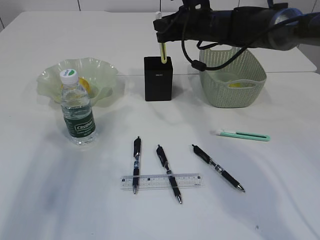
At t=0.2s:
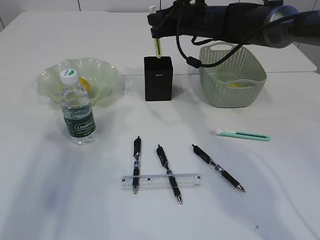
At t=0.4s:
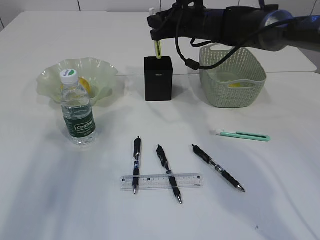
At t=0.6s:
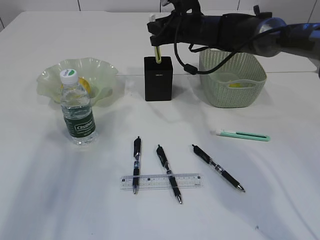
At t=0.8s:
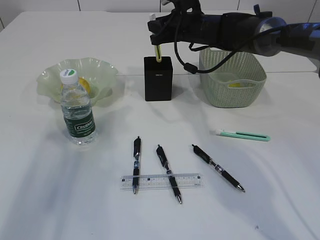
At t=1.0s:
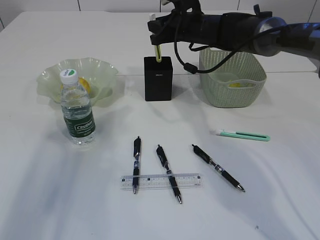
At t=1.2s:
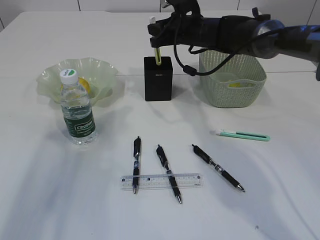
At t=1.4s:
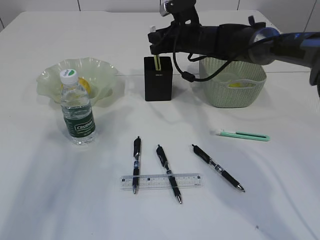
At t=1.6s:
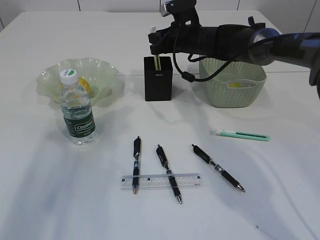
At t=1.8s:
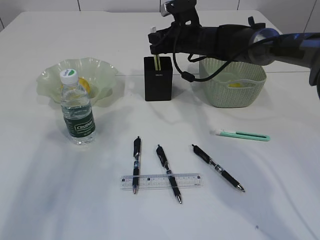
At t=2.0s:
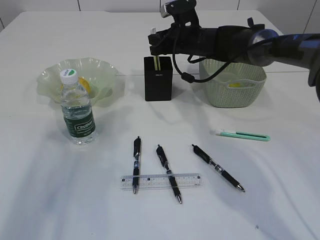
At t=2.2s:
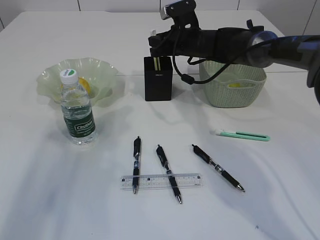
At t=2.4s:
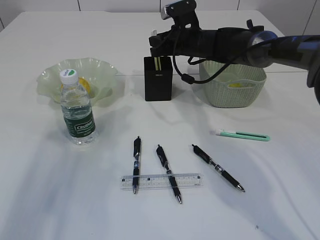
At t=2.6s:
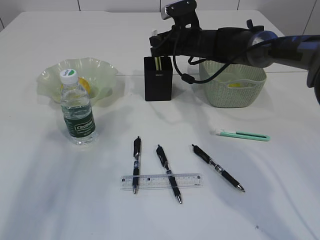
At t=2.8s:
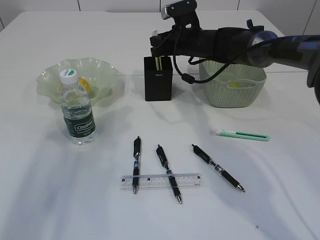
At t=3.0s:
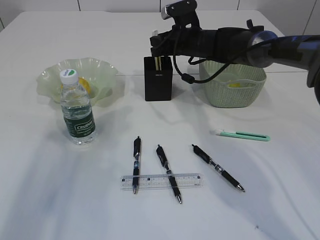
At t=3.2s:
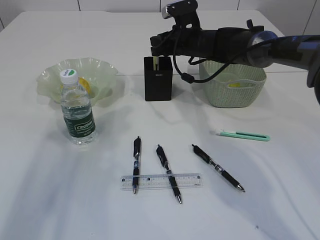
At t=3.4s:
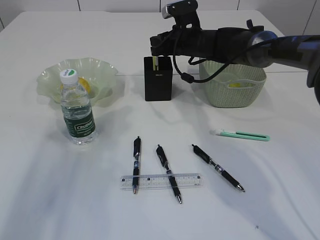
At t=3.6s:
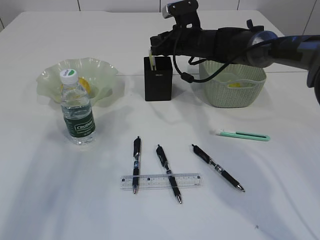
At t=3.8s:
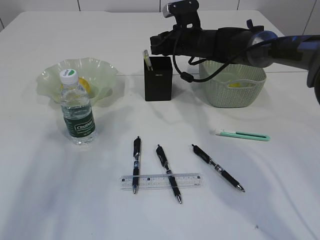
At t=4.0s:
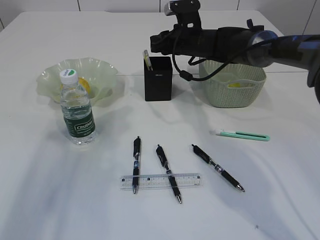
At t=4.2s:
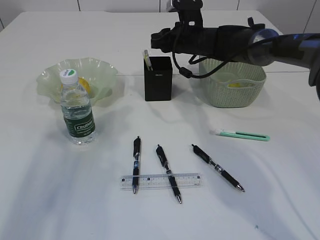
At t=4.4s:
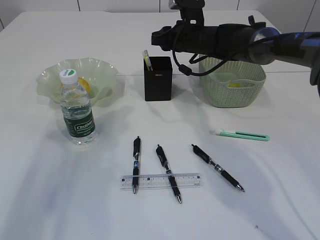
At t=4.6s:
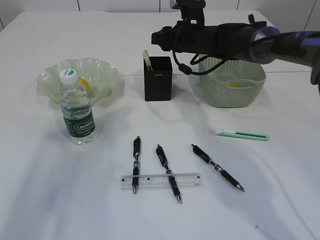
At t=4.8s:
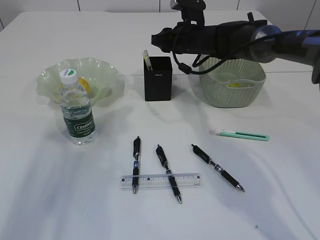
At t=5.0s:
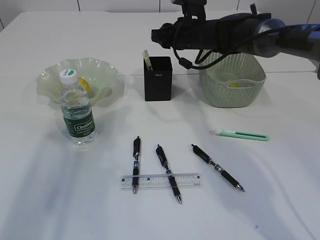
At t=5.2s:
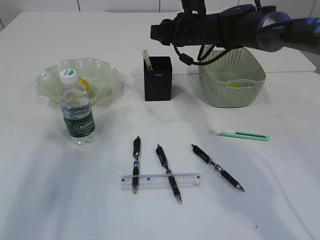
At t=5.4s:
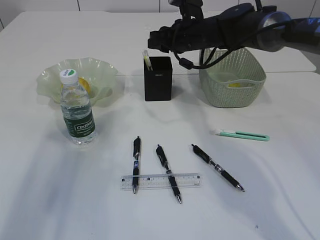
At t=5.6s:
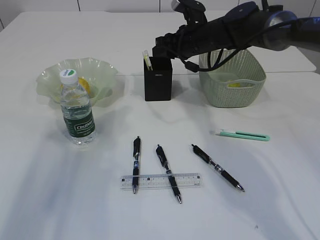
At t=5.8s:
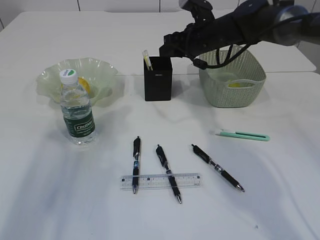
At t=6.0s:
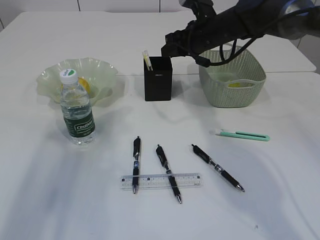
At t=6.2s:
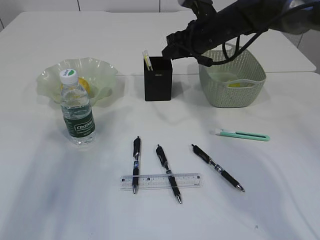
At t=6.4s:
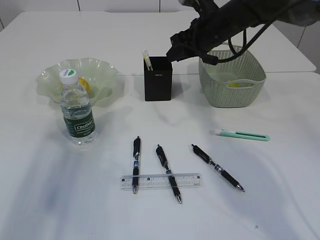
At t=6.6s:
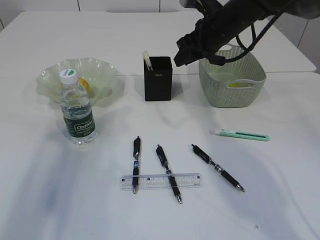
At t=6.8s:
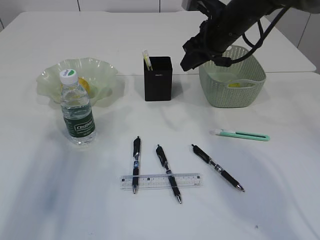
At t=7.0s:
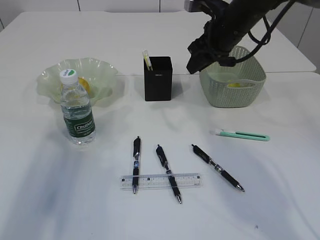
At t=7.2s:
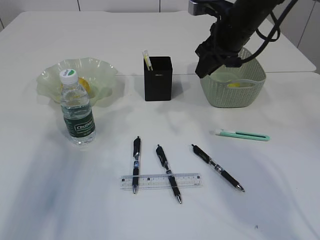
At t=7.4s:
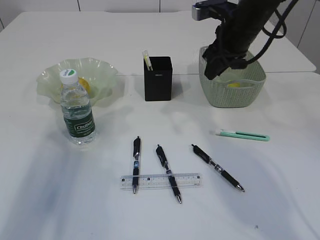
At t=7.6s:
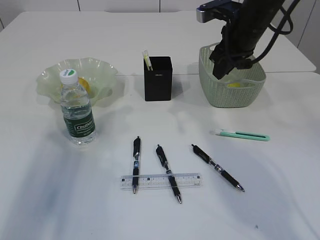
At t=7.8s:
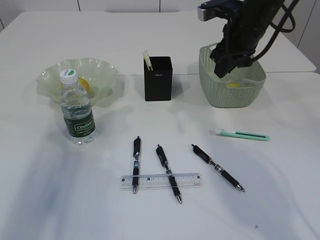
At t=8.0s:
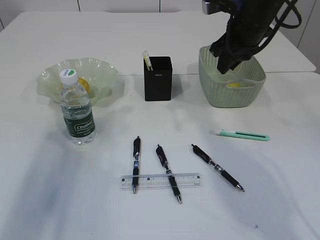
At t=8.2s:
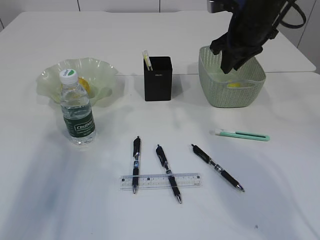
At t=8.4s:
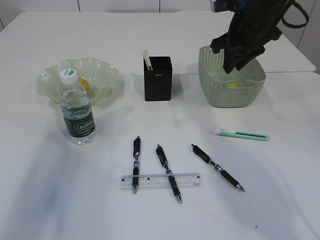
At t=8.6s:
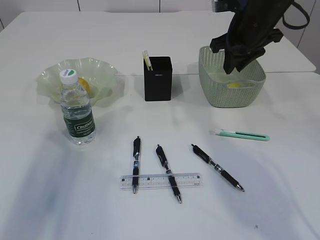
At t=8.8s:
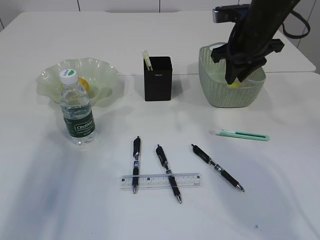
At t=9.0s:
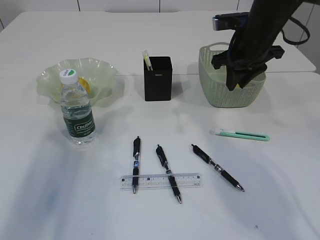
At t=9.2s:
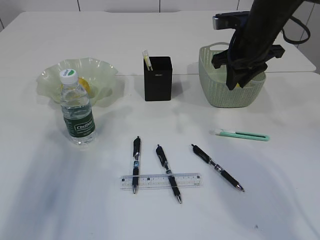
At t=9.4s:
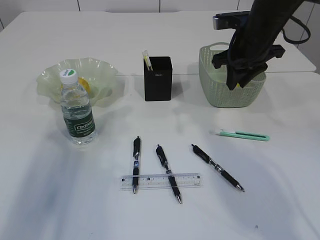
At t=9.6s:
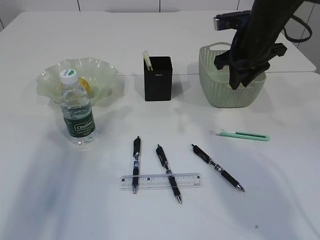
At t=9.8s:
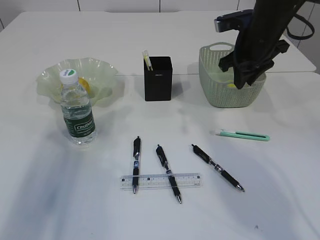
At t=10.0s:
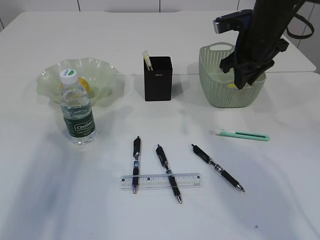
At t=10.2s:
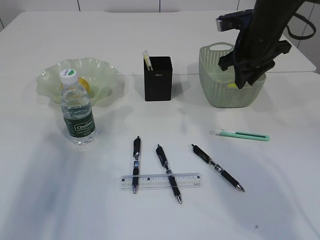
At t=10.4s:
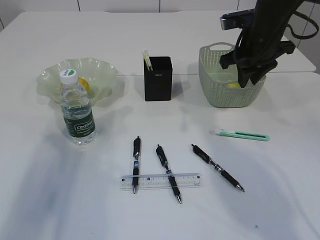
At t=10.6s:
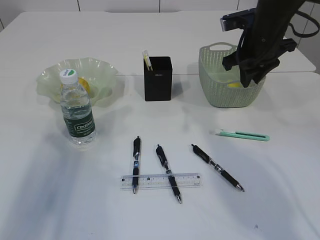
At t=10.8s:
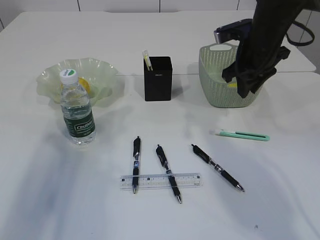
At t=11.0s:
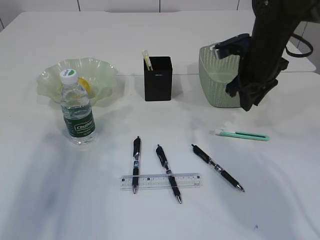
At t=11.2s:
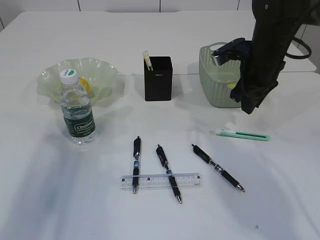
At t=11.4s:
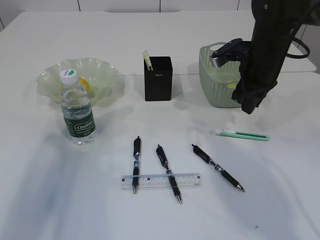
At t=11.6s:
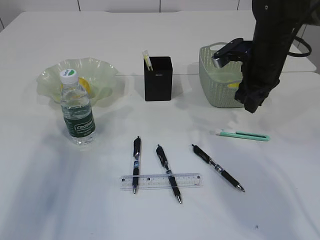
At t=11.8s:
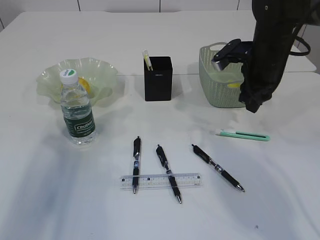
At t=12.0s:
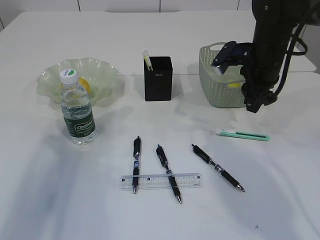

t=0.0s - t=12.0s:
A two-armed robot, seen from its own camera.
Step, t=0.0s - t=5.2s: place the yellow knife into the pen holder.
t=0.0s - t=1.6s: The grippers stay close to where they were, moving slightly.
t=1.6s - t=3.0s: The two grippers keep their place.
t=3.0s - t=4.4s: The grippers stay close to where they were, moving slightly.
t=6.0s - t=7.6s: The right gripper goes roughly 5 cm backward.
t=9.0s - t=10.4s: The grippers stay close to where they were, moving slightly.

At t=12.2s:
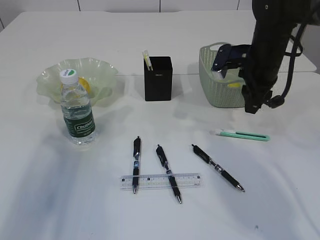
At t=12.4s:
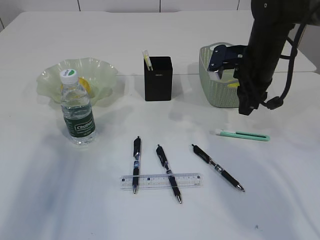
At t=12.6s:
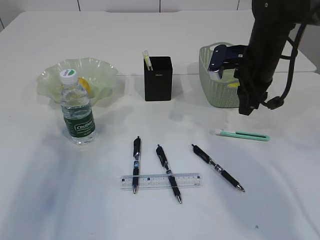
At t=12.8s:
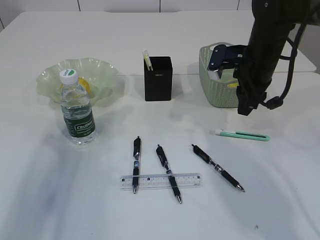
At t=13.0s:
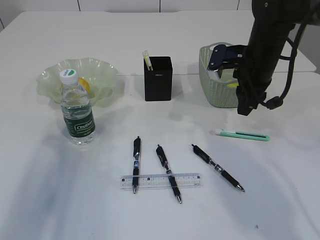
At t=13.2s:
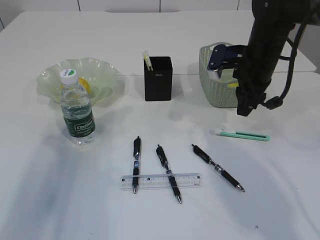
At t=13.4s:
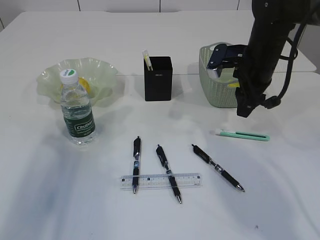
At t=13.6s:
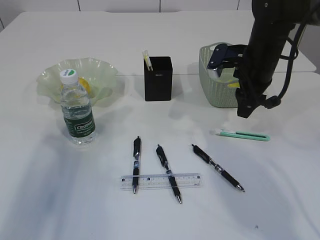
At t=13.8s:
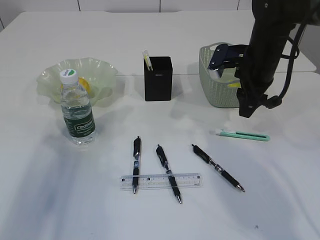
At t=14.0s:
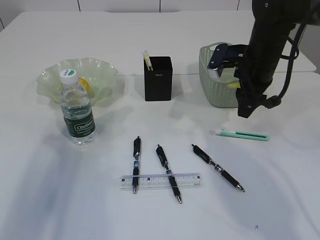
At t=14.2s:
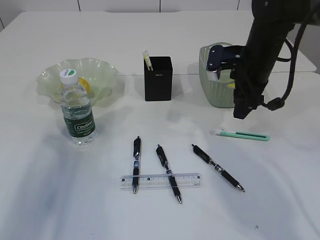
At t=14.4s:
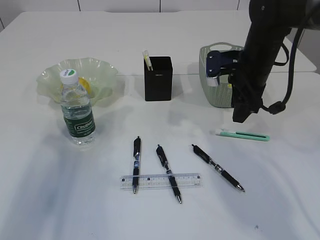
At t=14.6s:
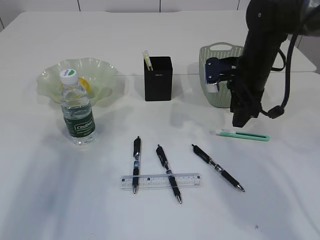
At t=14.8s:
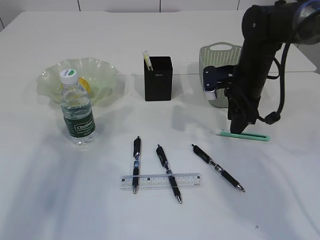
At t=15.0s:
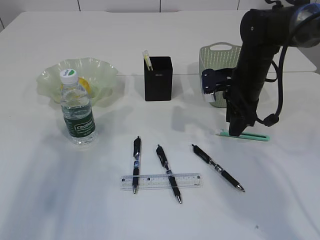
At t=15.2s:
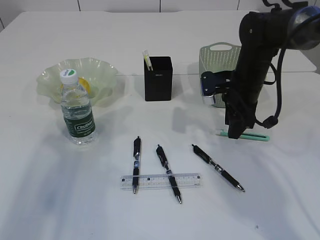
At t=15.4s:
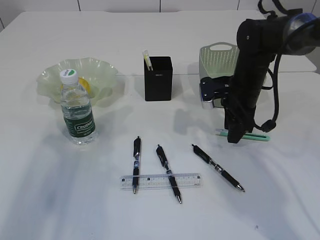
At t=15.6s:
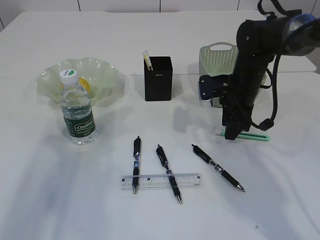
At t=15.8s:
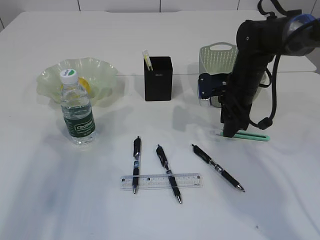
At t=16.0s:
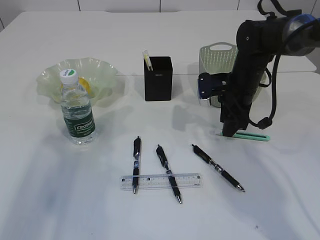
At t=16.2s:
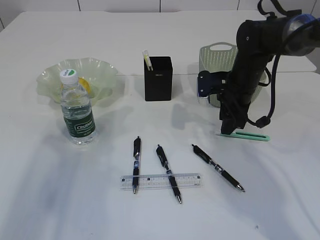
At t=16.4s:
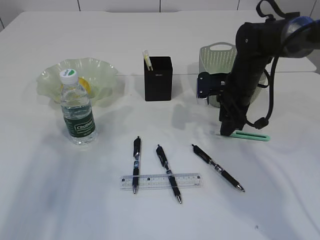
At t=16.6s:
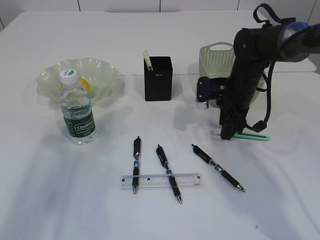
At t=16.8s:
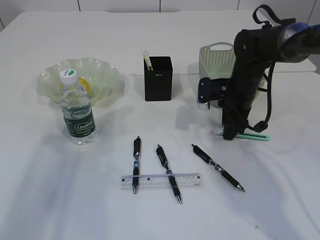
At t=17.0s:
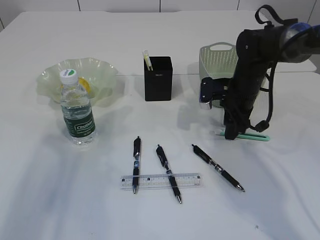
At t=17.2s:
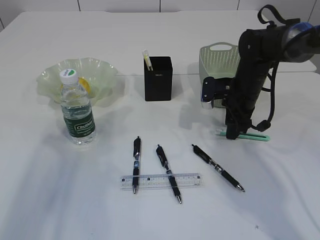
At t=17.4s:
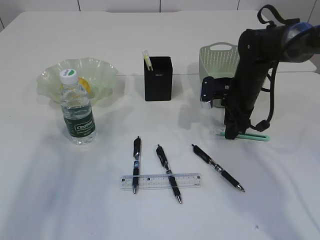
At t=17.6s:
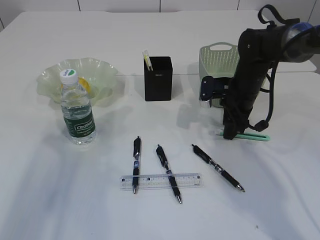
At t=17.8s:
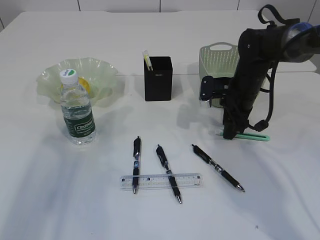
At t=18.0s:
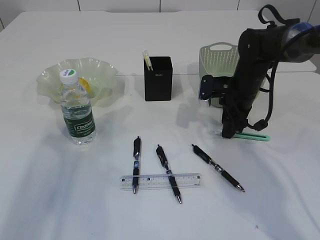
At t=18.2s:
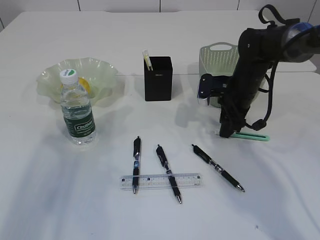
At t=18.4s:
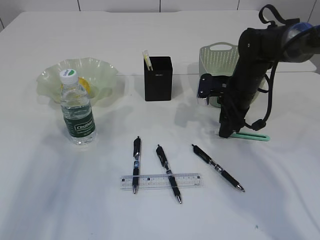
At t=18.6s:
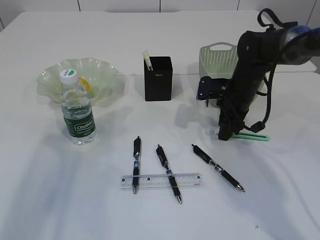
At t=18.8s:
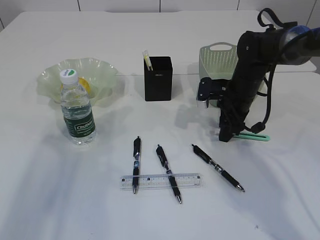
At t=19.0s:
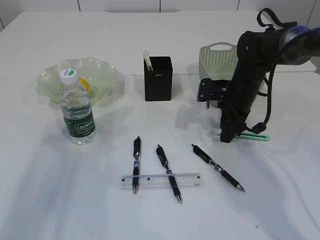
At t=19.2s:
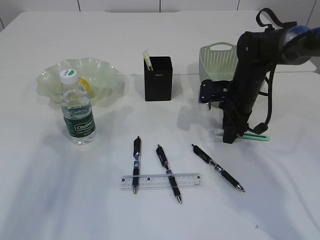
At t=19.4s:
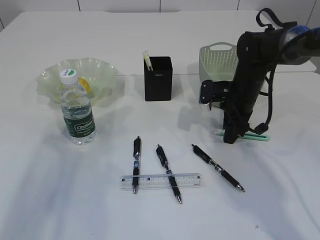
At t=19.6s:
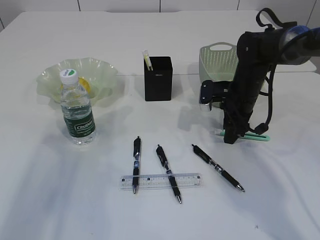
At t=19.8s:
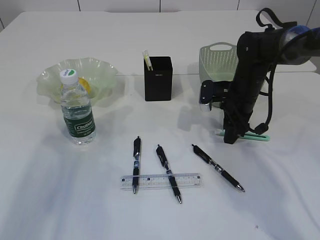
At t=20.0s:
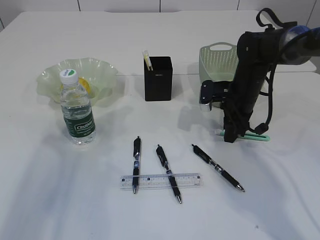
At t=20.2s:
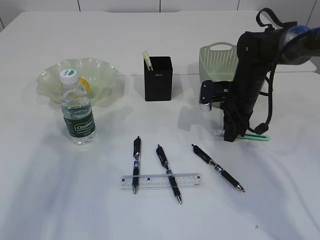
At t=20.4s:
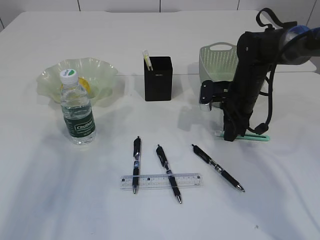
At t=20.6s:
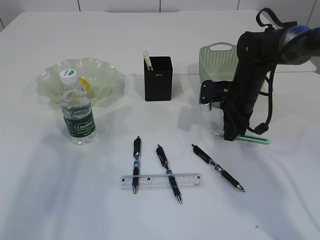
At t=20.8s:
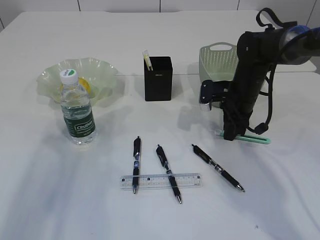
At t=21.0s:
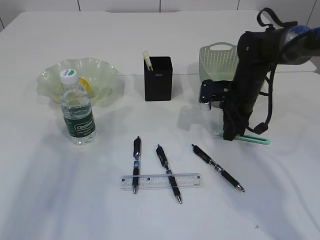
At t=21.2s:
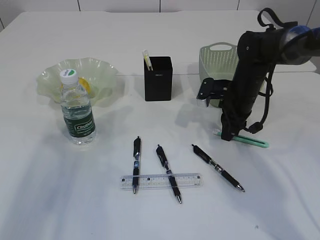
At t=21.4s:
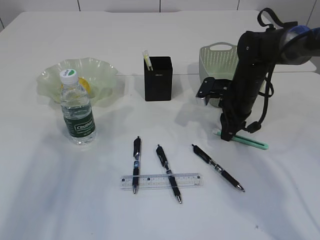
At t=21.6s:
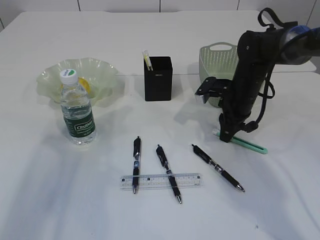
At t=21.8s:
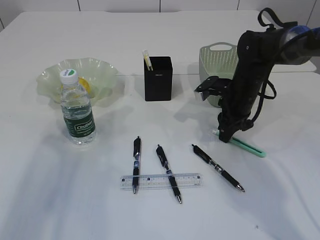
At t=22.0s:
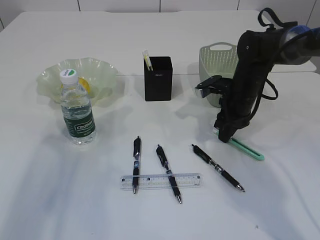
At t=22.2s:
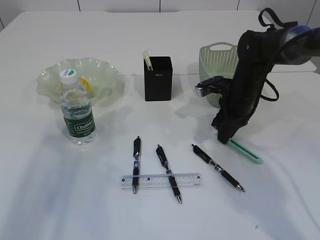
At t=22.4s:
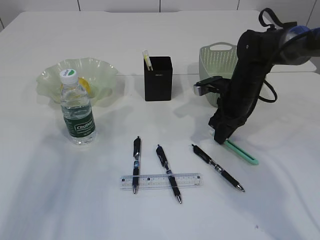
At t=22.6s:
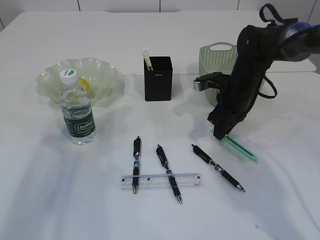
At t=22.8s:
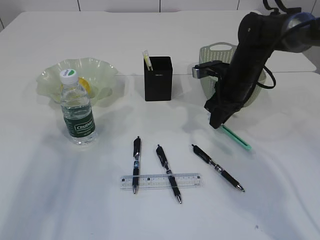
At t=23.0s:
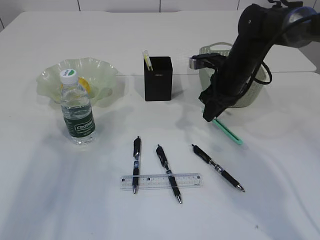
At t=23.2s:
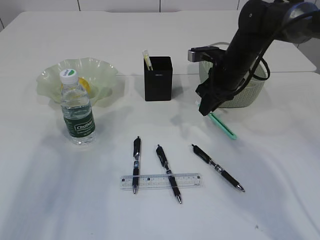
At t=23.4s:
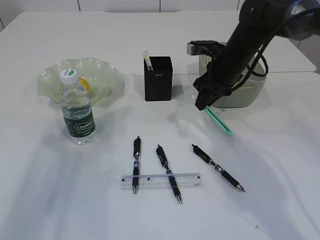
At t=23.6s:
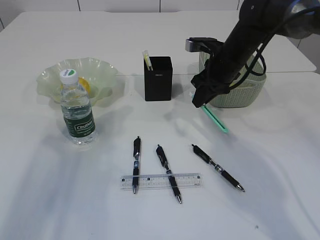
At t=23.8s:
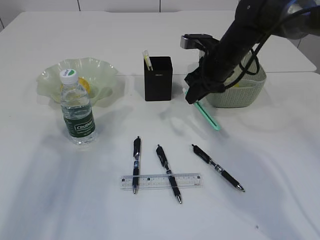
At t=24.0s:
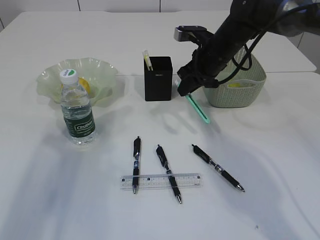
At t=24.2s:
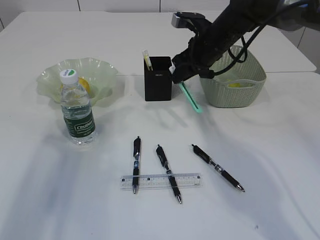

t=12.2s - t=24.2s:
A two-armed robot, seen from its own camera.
Step, t=12.2s - t=22.8s: pick up the blue knife.
t=12.2s - t=13.8s: The grippers stay close to where they were, moving slightly.
t=13.8s - t=15.2s: The right gripper is displaced downward by approximately 5 cm.
t=15.2s - t=16.6s: The grippers make only small movements.
t=16.6s - t=18.2s: Both grippers stay put.
t=18.2s - t=19.8s: Both grippers stay about where they are.
t=19.8s - t=21.2s: The right gripper closes.
t=22.6s - t=24.2s: The right gripper is displaced upward and to the left by about 10 cm.
